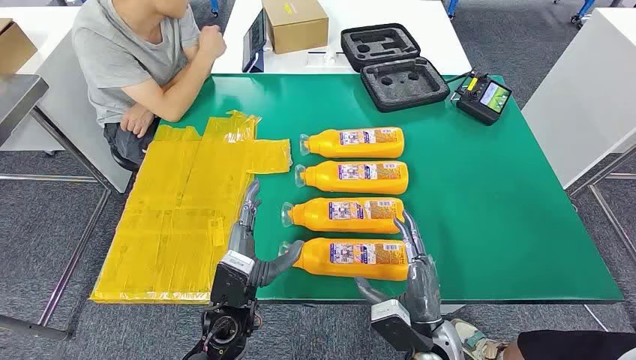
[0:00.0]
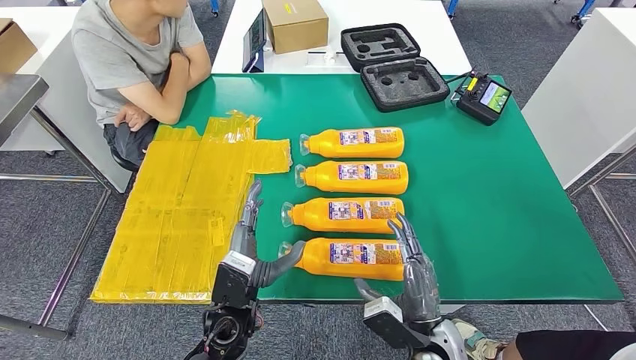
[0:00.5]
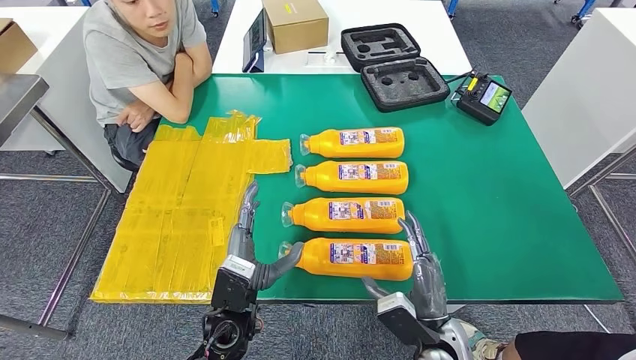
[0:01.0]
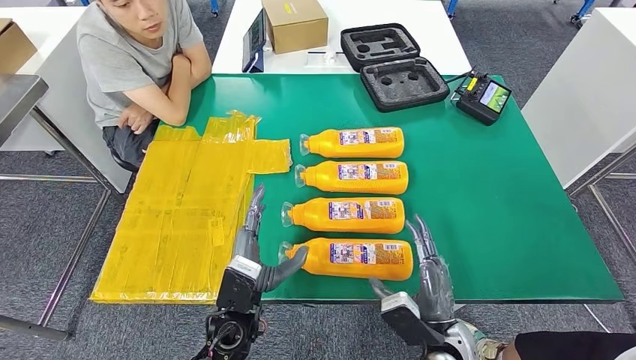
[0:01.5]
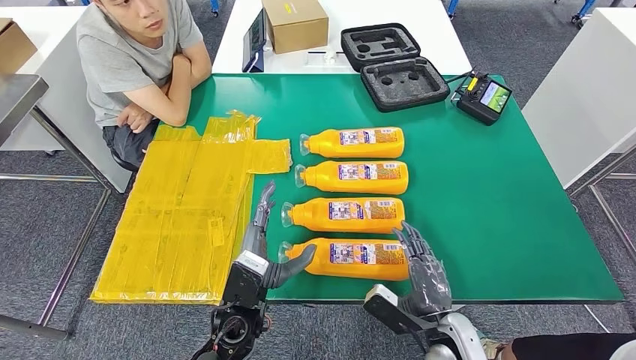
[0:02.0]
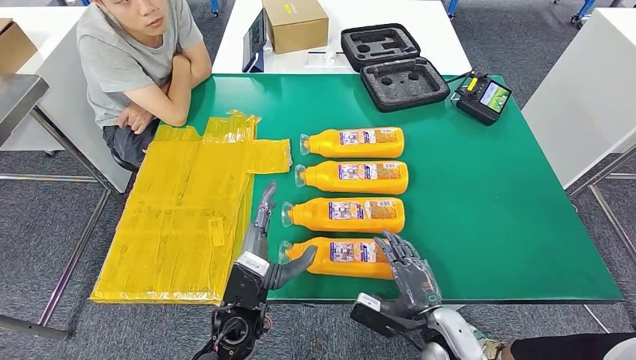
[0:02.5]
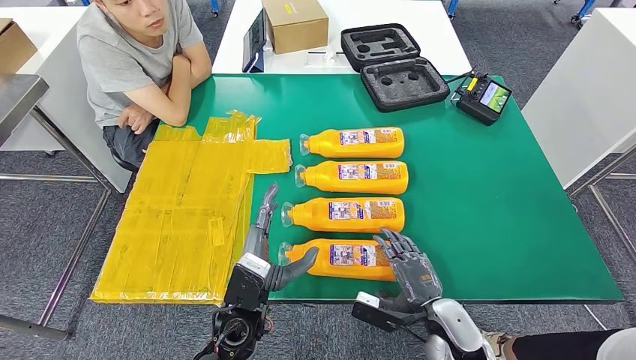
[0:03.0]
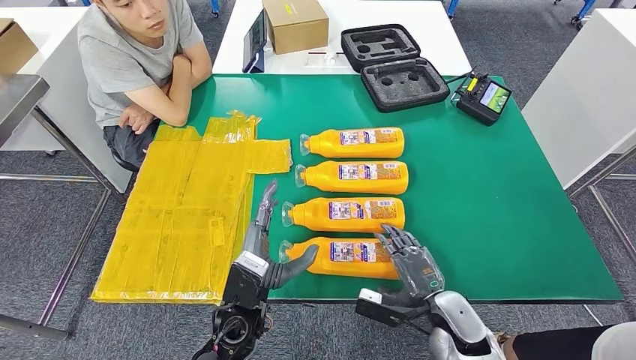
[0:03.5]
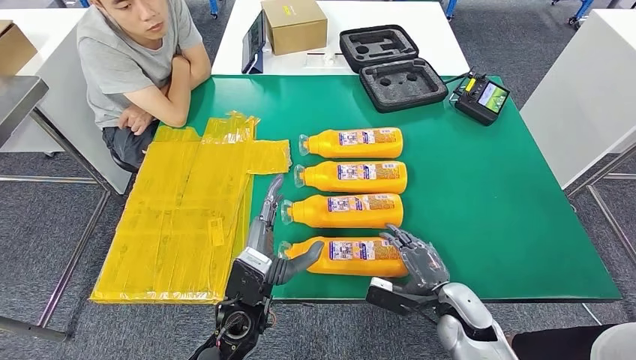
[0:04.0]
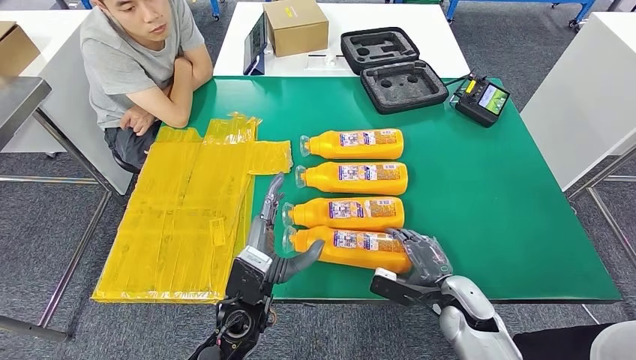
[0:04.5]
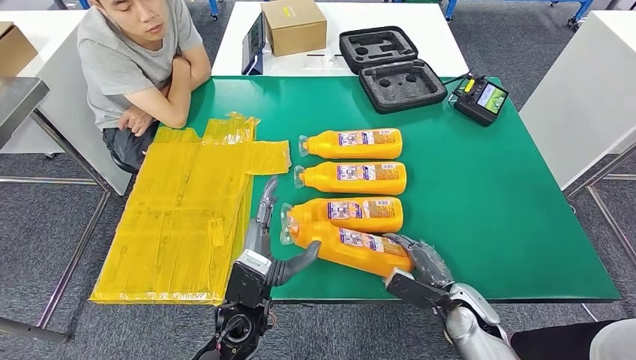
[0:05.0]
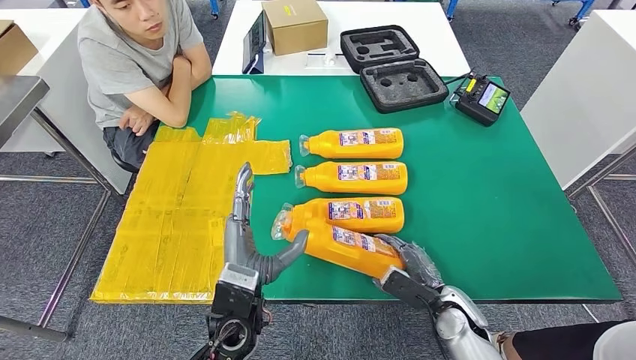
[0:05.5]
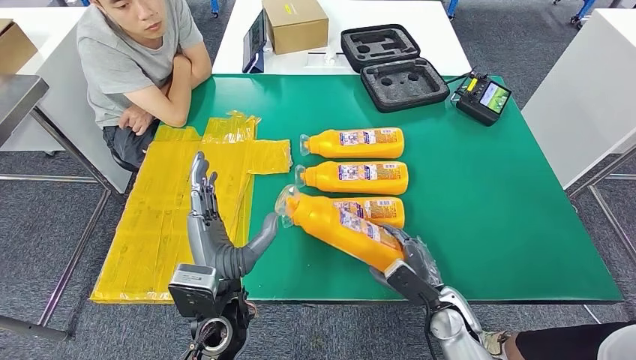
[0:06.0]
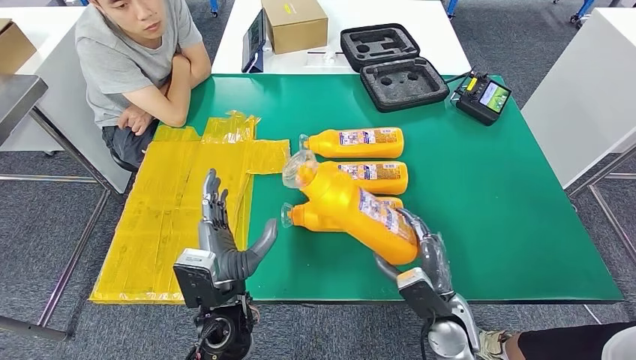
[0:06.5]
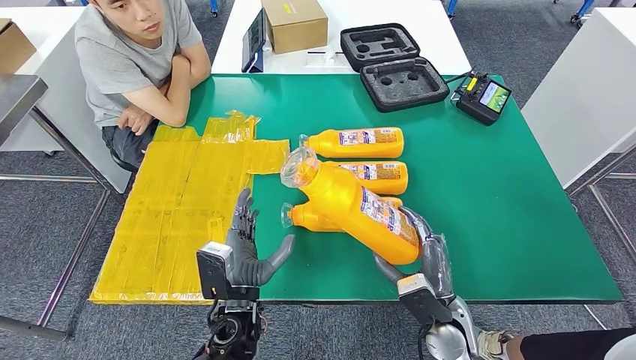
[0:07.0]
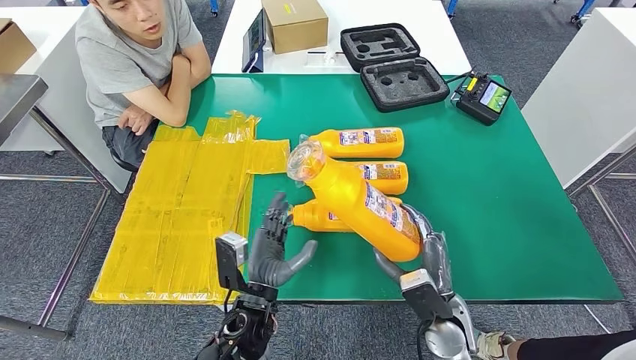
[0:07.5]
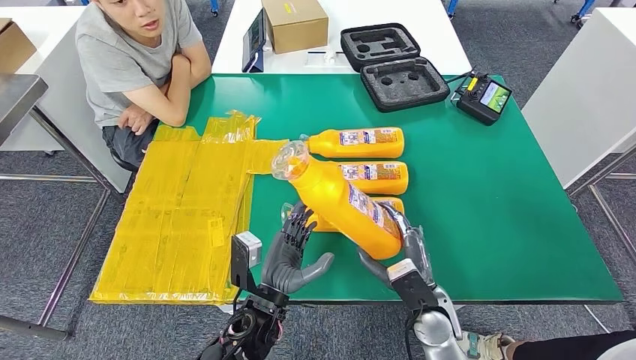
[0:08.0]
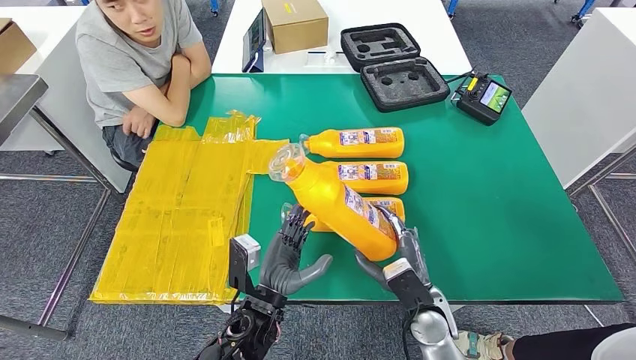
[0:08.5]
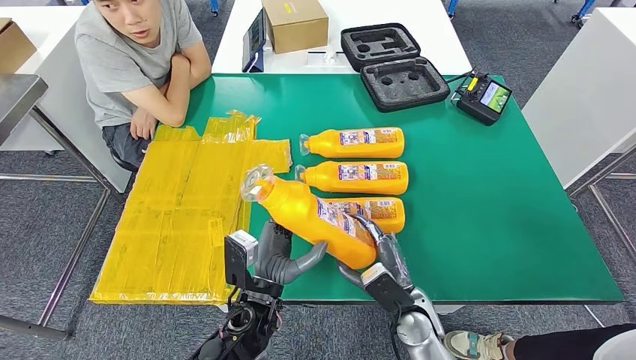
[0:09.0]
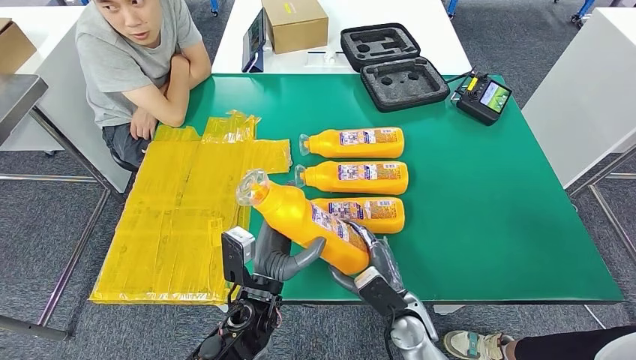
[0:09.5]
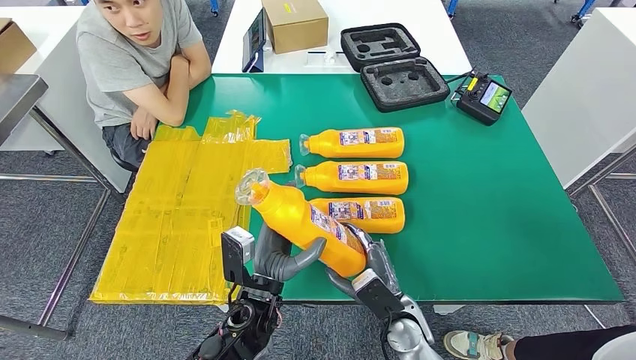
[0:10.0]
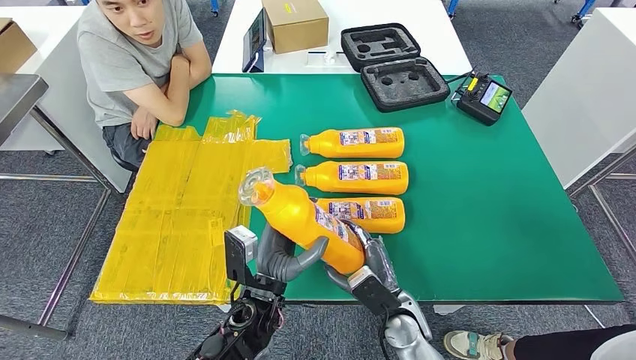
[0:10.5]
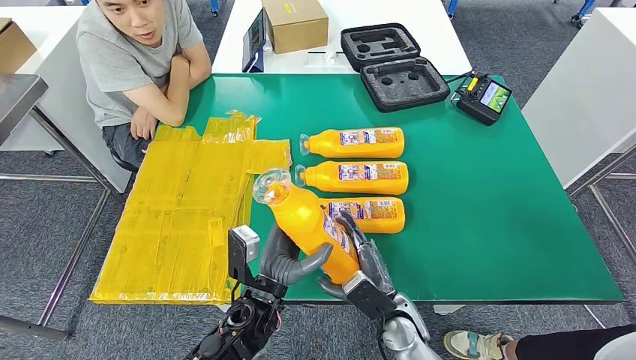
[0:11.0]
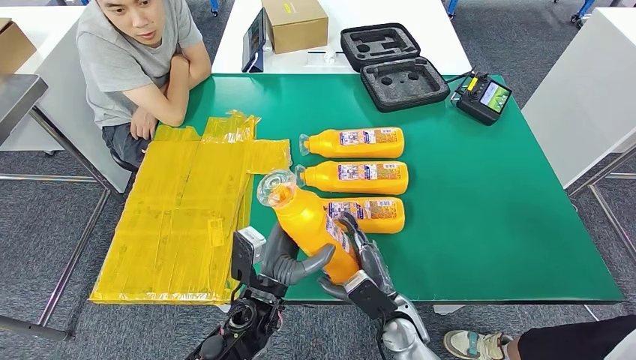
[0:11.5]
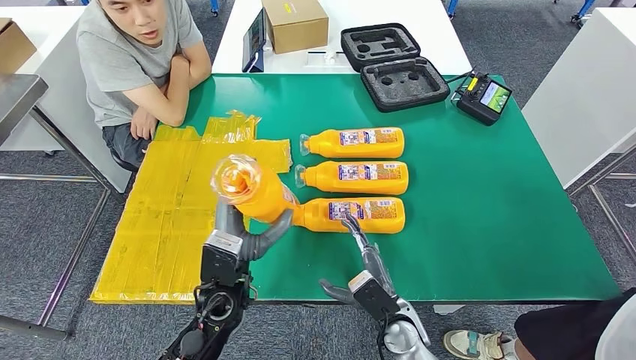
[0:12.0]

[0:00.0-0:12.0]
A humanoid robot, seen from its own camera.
Step, 0.0 to 9.0 s: Take the fast-moving consumer goods bottle from the table.
2.0 to 4.0 s: The right hand shifts some 5 cm forward.
4.0 to 6.0 s: The left hand travels upward by some 5 cm.
6.0 to 8.0 s: The right hand moves approximately 5 cm. The left hand moves downward, some 5 cm.
8.0 to 10.0 s: The right hand moves some 5 cm.
10.0 to 12.0 s: The left hand moves some 5 cm.

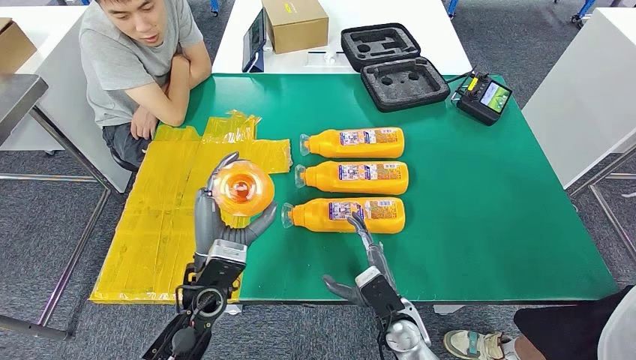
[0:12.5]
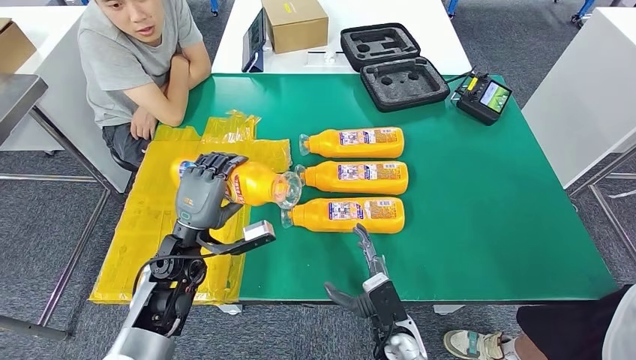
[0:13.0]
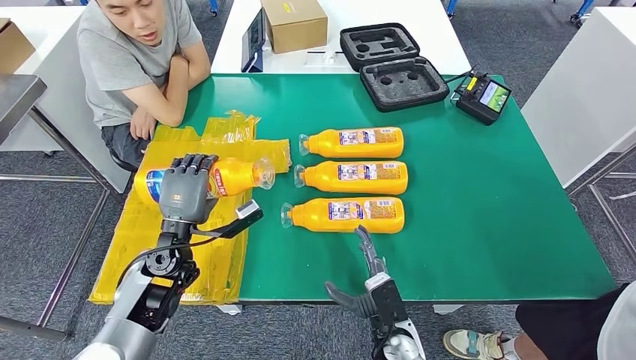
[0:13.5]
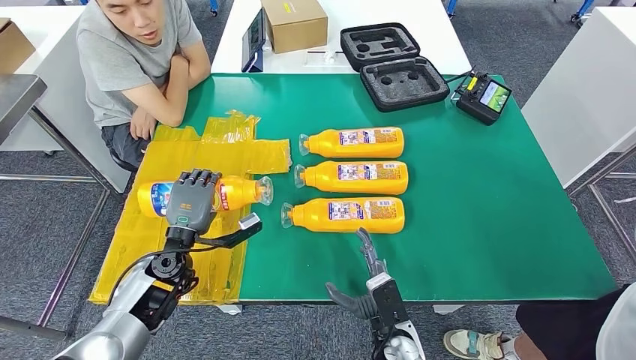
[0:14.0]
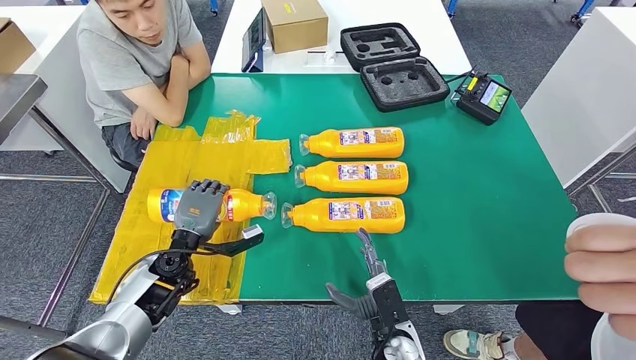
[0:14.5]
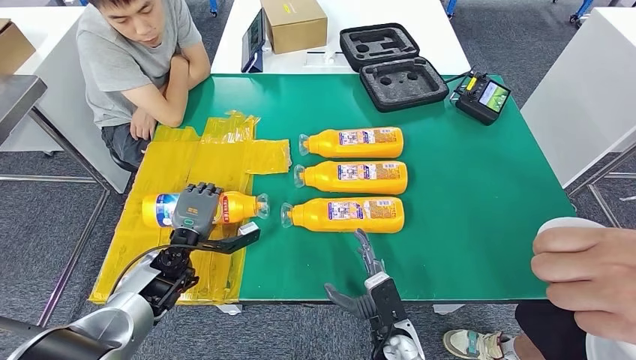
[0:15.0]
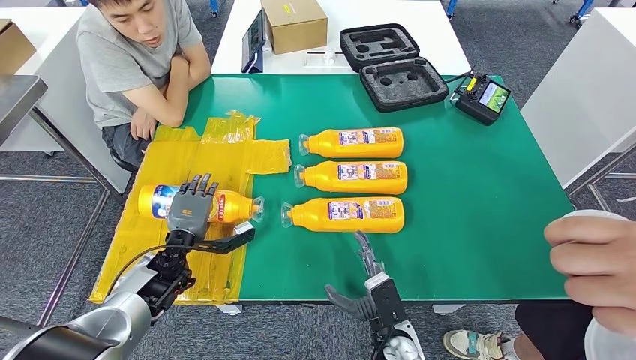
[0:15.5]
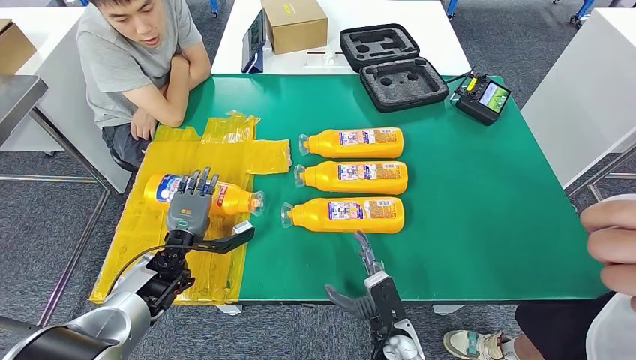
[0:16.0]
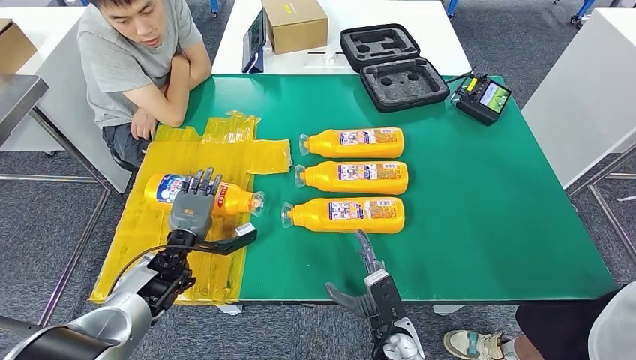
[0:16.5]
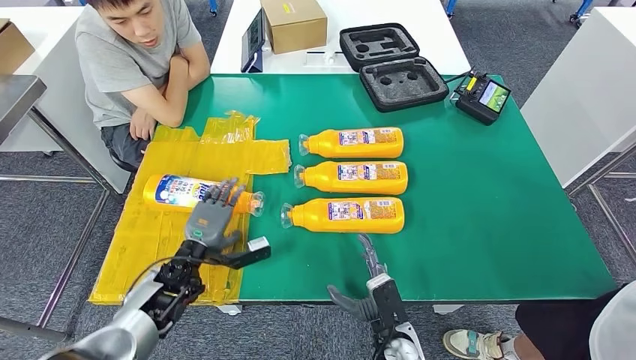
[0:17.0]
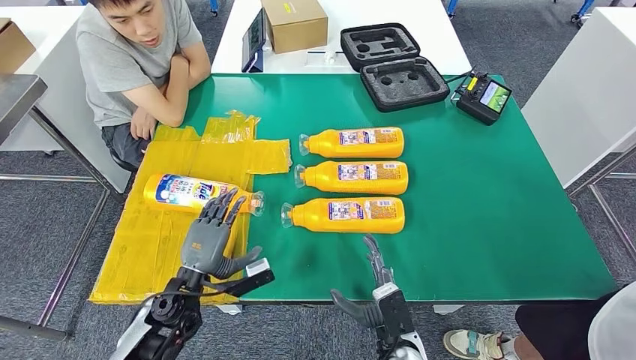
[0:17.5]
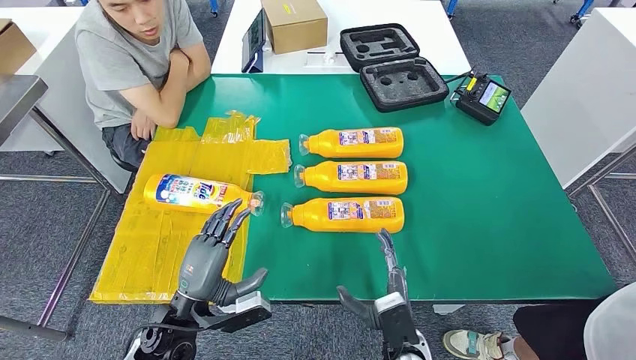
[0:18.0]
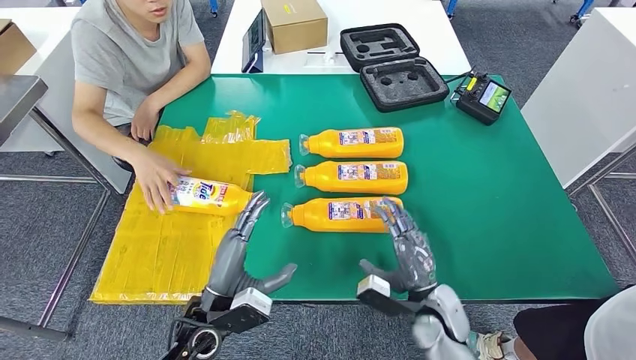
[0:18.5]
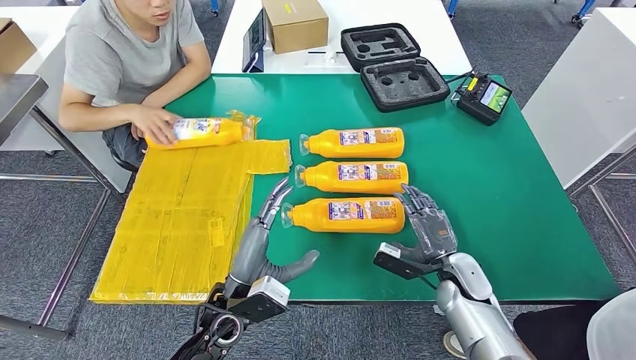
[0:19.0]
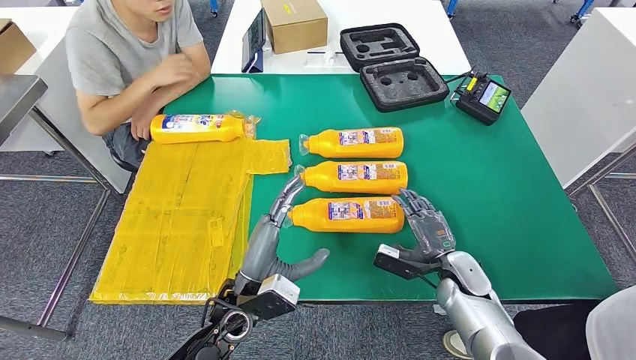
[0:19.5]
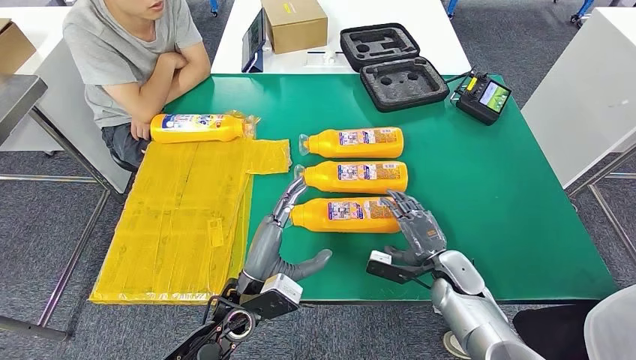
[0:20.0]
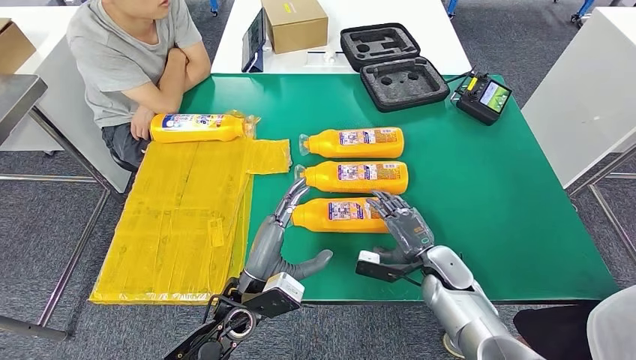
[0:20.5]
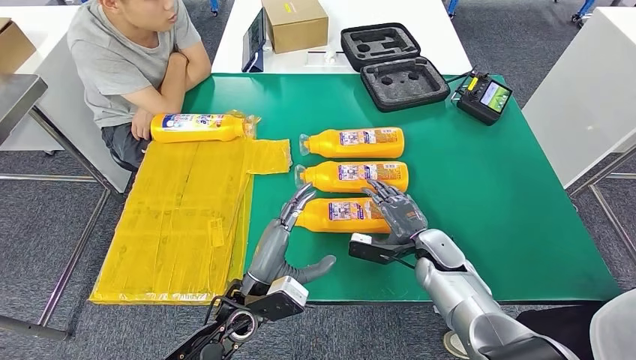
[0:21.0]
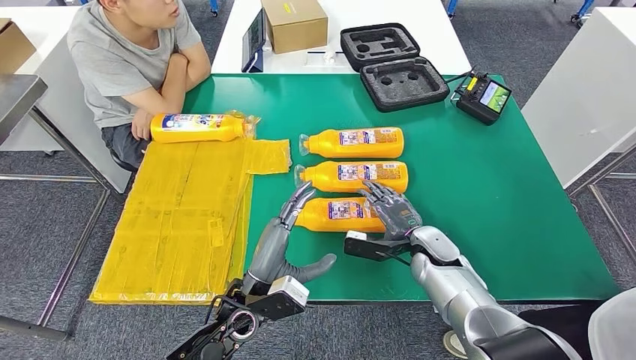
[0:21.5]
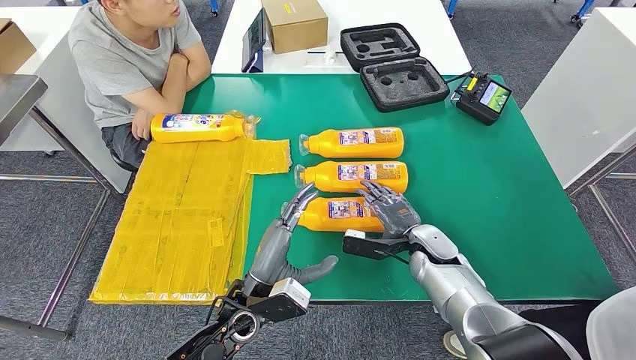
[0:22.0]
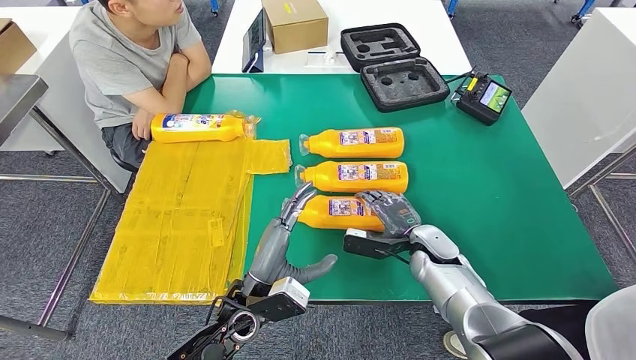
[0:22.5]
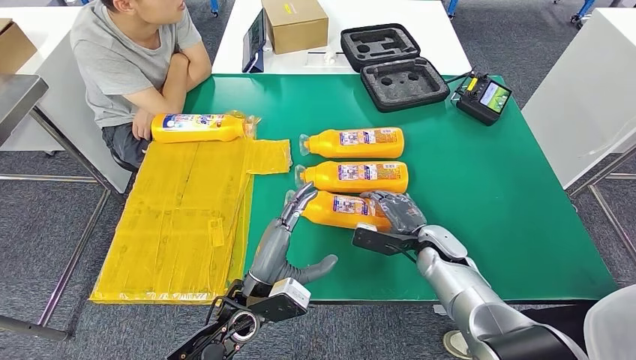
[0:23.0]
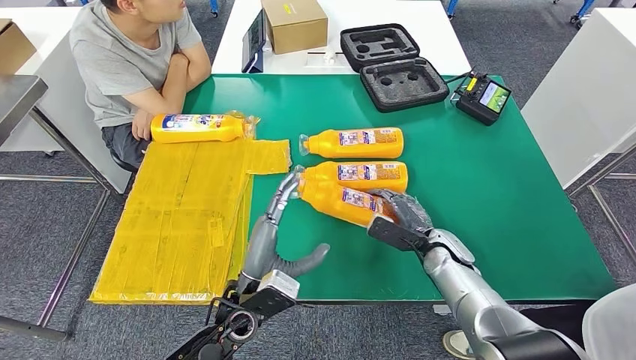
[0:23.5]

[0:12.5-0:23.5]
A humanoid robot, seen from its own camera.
Step, 12.5 to 16.0 s: Flip the fast-moving consumer goods bottle to the front side.
12.5 to 14.5 s: The left hand travels to the left, downward and forward by roughly 15 cm.
14.5 to 16.0 s: The hands move only a little.
16.0 to 18.0 s: The left hand goes about 15 cm backward.
18.0 to 20.0 s: The left hand shifts approximately 10 cm to the right, while the right hand goes about 15 cm forward and to the right.
20.0 to 21.5 s: The right hand shifts roughly 5 cm to the left.
